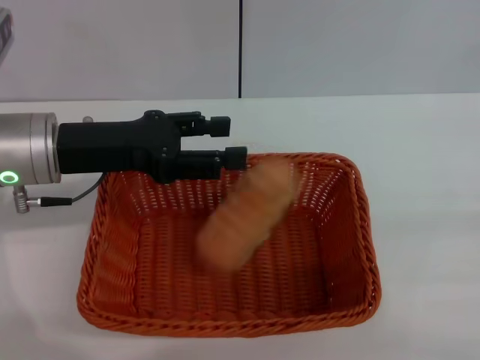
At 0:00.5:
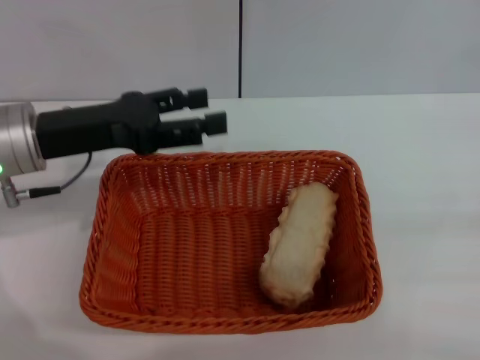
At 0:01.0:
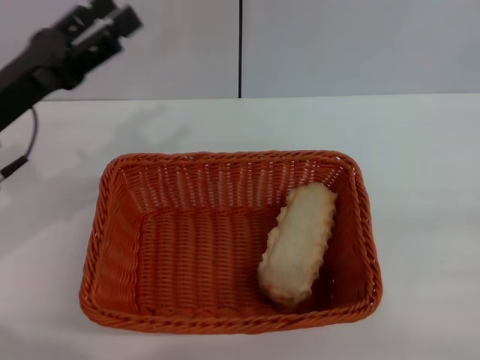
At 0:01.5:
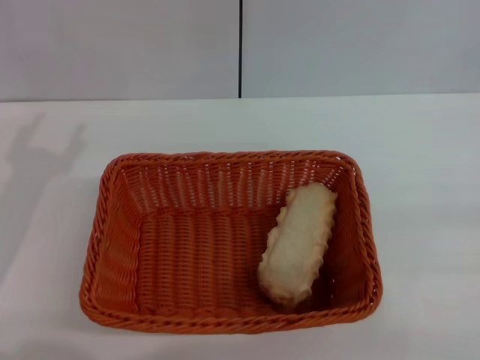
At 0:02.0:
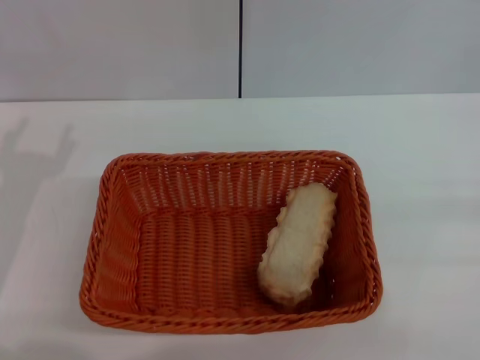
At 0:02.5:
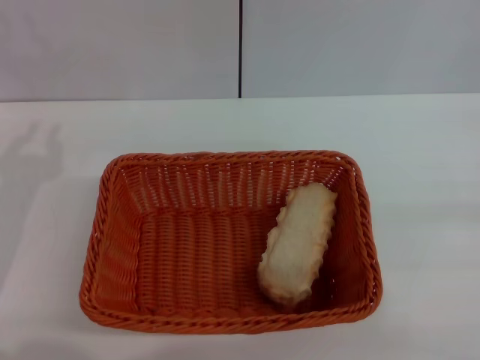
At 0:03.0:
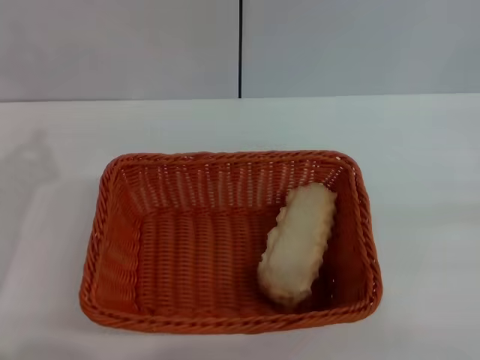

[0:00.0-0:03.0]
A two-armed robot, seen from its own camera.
0:00.0 to 0:01.5: The left gripper shifts some 10 cm to the left, backward and downward.
